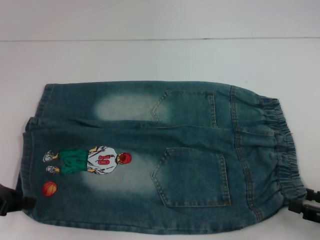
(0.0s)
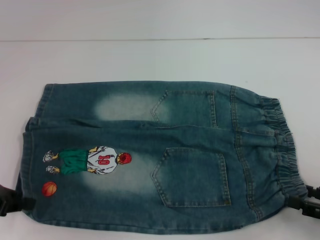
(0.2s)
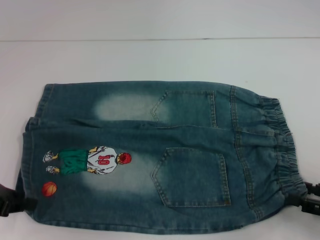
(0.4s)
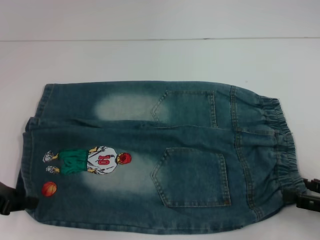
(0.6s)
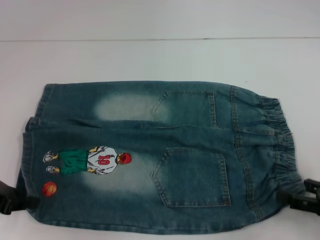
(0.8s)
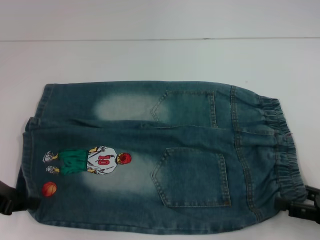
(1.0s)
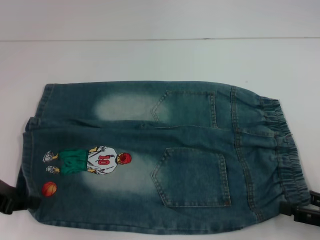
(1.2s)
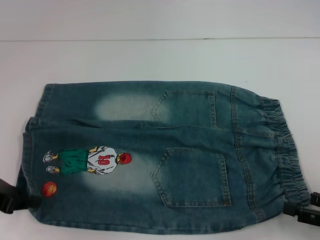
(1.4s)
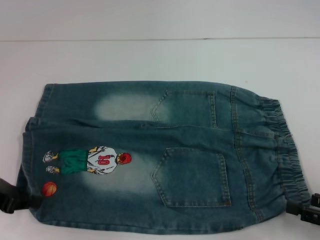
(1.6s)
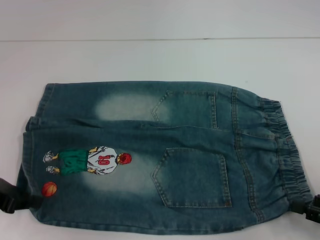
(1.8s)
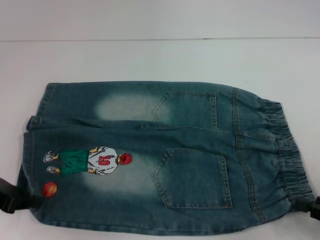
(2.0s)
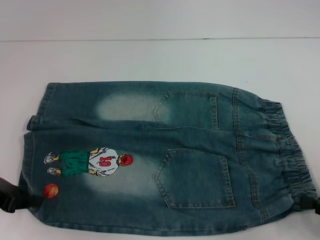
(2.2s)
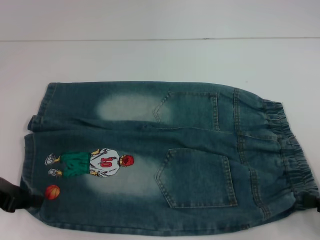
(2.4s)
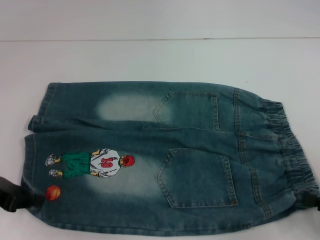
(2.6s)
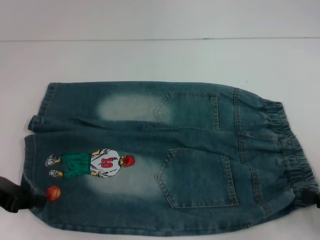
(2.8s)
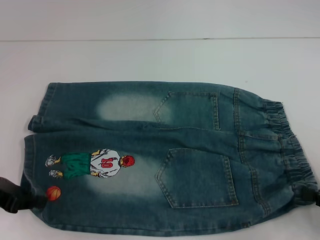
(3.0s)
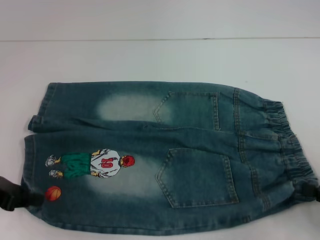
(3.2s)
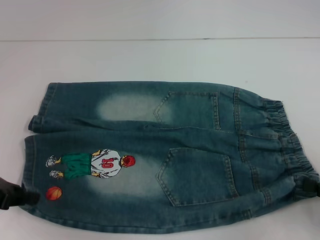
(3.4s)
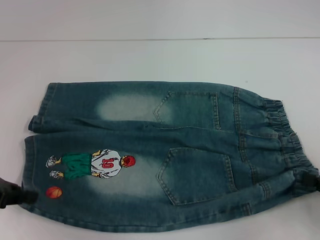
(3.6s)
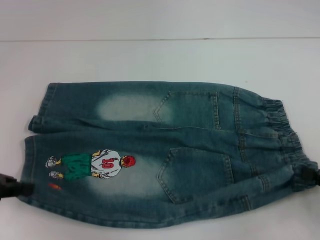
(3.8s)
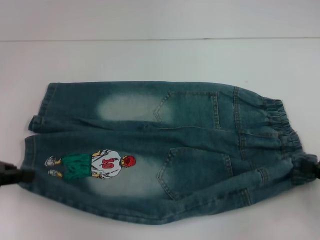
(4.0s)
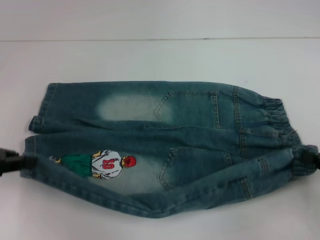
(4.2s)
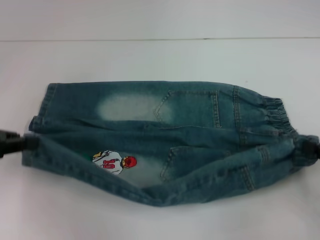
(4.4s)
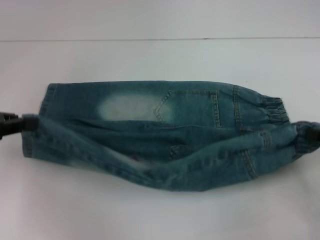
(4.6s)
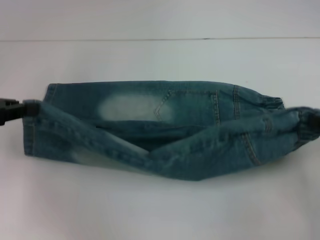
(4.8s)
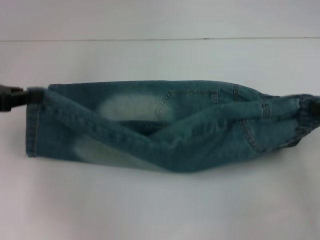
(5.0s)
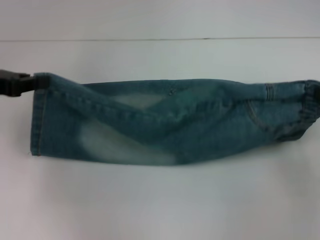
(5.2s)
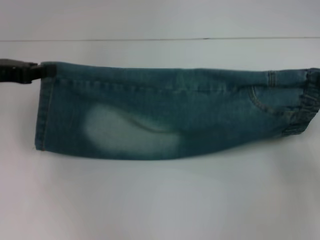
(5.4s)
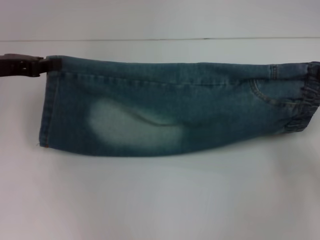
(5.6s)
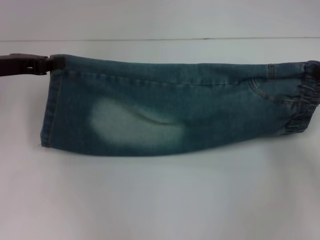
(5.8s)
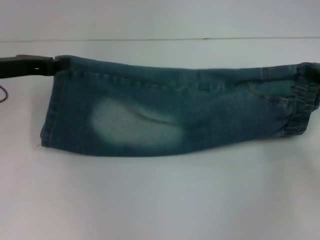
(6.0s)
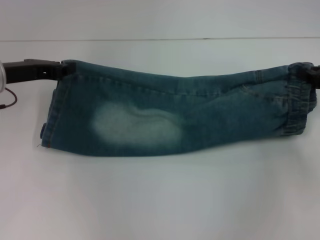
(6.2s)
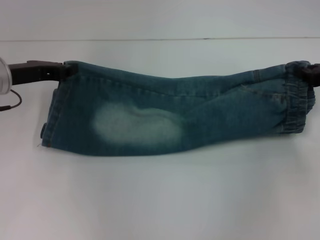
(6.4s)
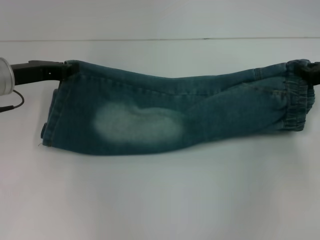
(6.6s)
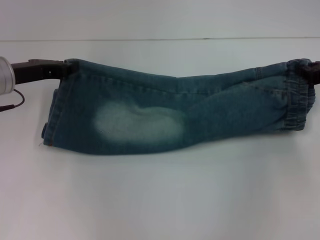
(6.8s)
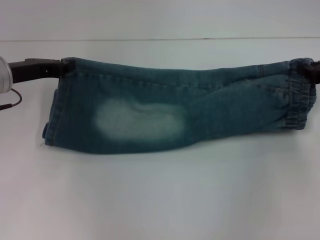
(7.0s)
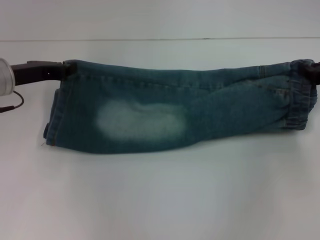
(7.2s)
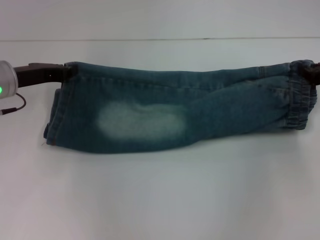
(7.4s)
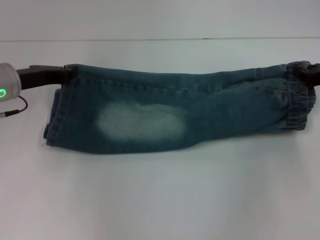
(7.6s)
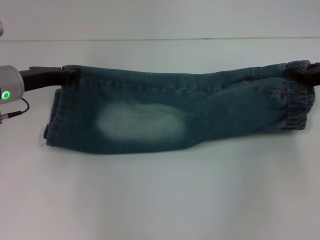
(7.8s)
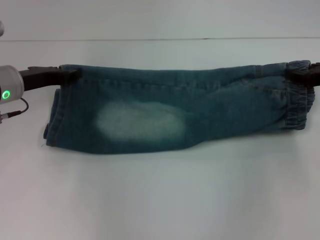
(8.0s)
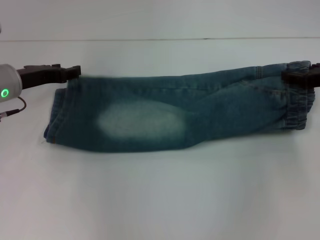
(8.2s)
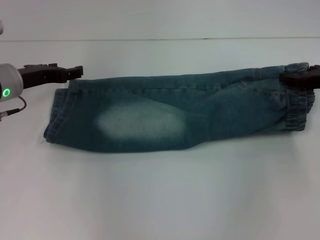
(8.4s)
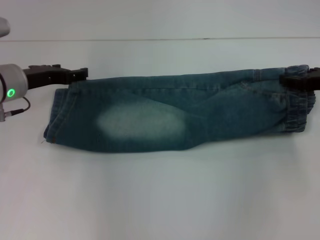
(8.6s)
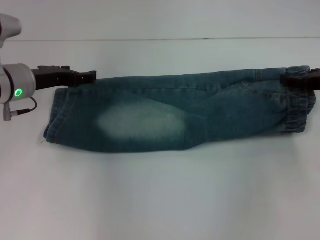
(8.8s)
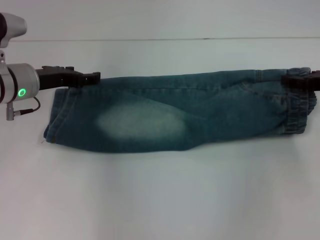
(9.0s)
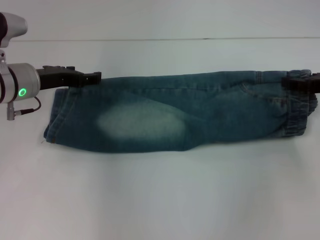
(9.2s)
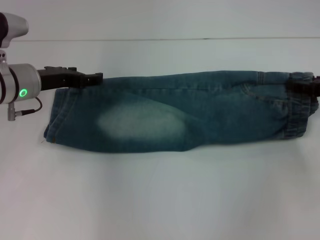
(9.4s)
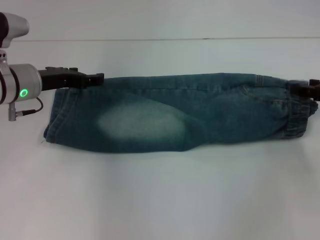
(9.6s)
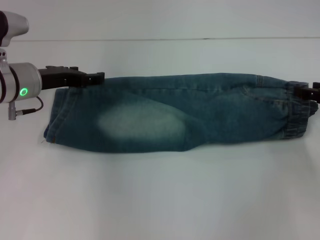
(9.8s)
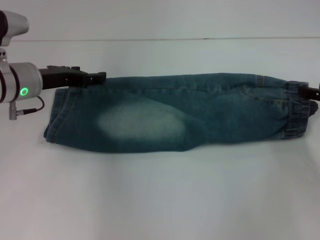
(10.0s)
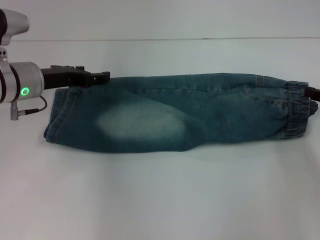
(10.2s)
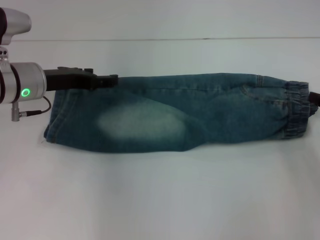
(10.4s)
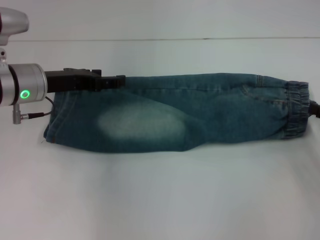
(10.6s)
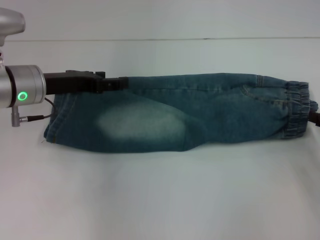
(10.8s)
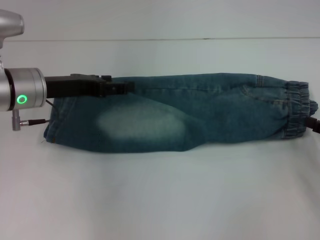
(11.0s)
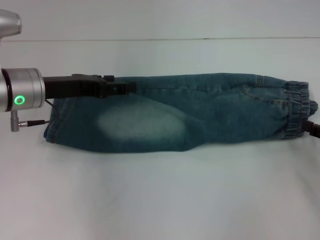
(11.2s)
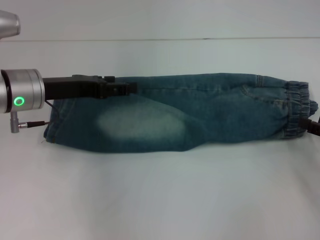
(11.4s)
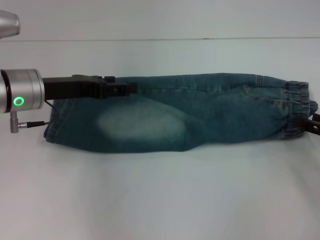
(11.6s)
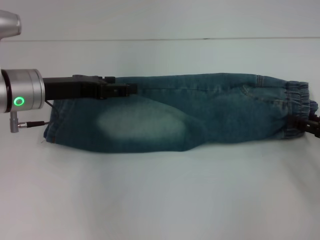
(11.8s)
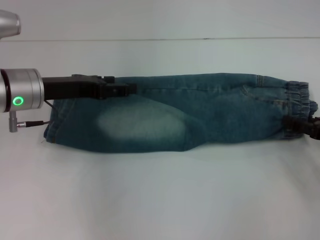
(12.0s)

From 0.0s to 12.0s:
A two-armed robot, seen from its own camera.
Step, from 0.0s to 2.2s: Hold the lower right waistband with your right hand.
Step, from 2.4s to 8.2s: Fold upward with your left hand.
Step, from 8.4s to 9.4s: Fold upward with your right hand.
From 0.0s to 1.6s: There are only small adjustments of the grippers.
From 1.6s to 3.0s: The right gripper closes its fingers.
From 3.0s to 4.4s: The left gripper moves about 5 cm; the right gripper travels forward by about 5 cm.
From 4.4s to 6.0s: The left gripper shifts some 10 cm forward and to the right; the right gripper moves forward, some 10 cm.
From 6.0s to 7.6s: There are only small adjustments of the grippers.
From 7.6s to 9.0s: The left gripper opens its fingers. The right gripper opens.
From 9.0s to 10.4s: The right gripper moves backward, about 5 cm.
From 10.4s to 12.0s: The grippers make only small movements.

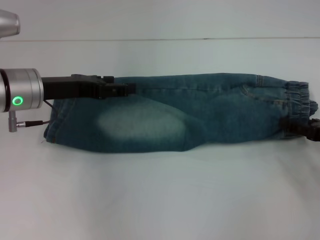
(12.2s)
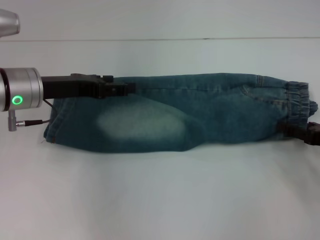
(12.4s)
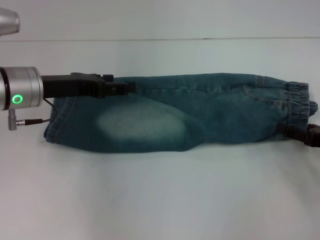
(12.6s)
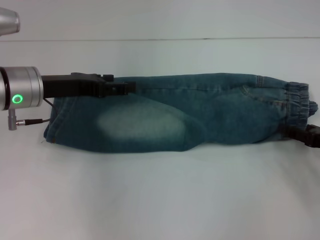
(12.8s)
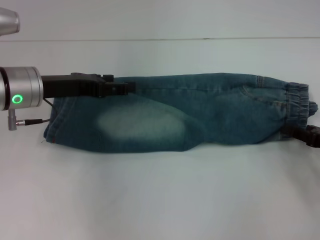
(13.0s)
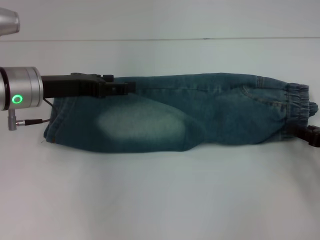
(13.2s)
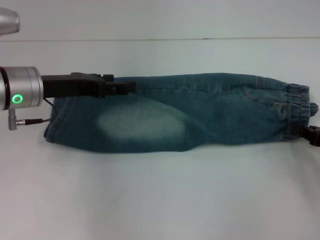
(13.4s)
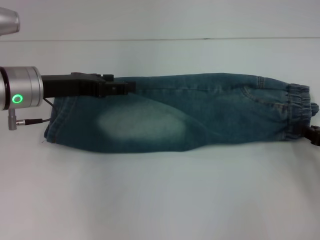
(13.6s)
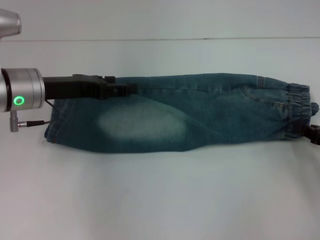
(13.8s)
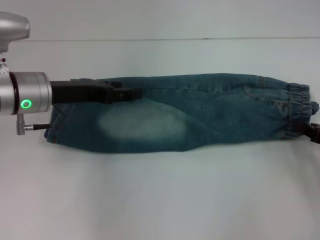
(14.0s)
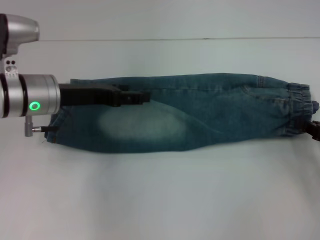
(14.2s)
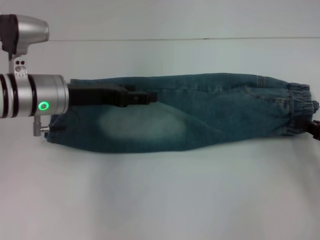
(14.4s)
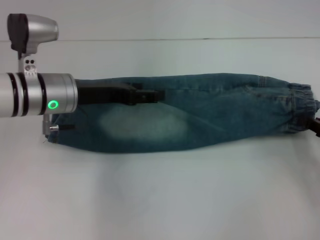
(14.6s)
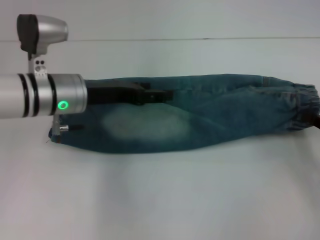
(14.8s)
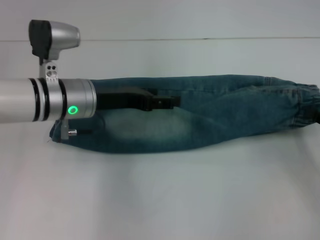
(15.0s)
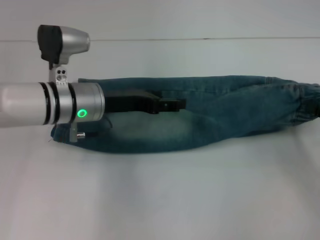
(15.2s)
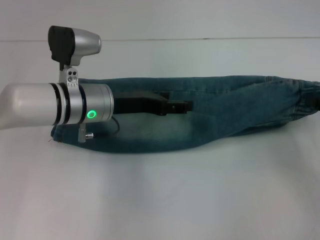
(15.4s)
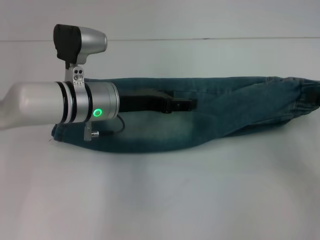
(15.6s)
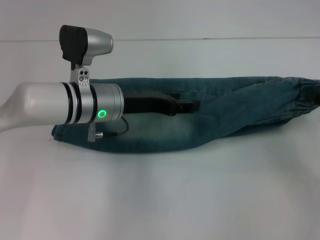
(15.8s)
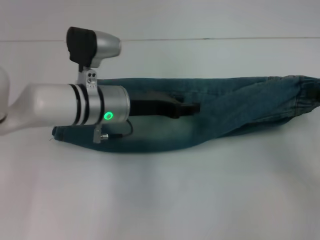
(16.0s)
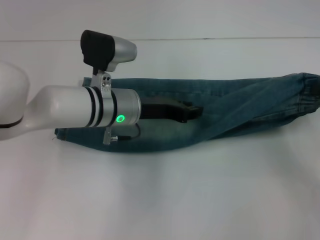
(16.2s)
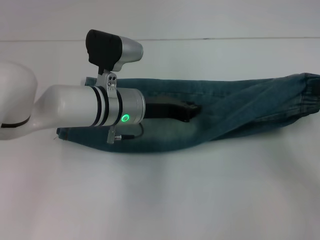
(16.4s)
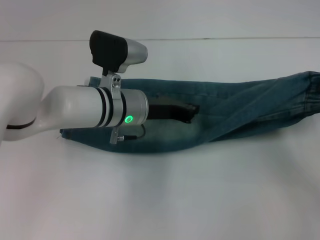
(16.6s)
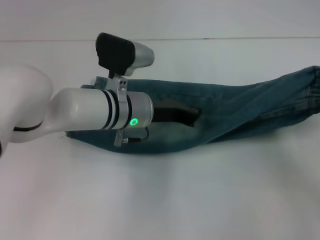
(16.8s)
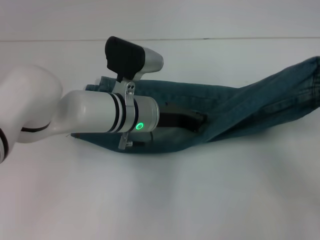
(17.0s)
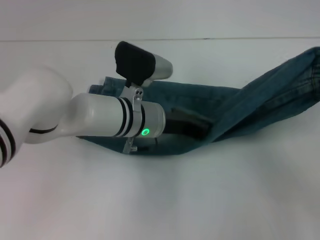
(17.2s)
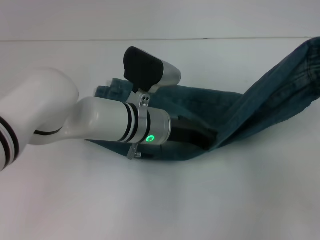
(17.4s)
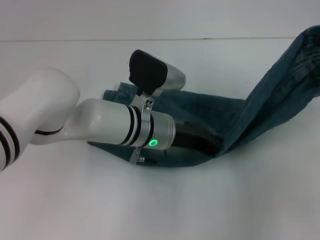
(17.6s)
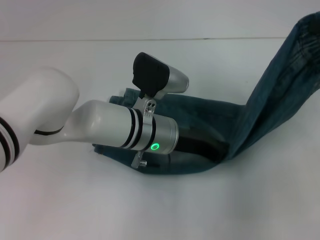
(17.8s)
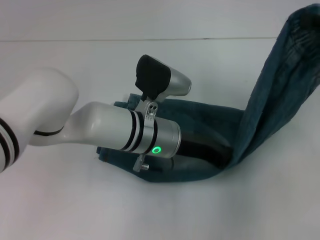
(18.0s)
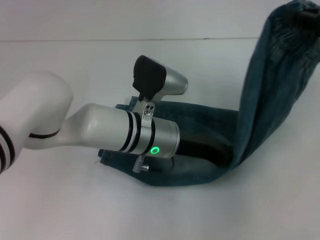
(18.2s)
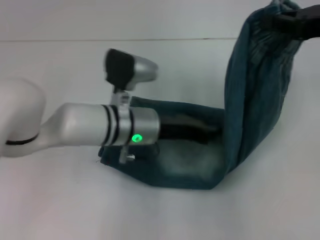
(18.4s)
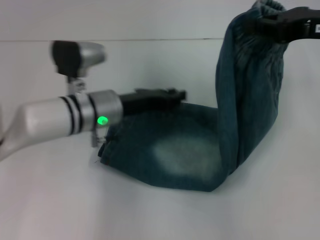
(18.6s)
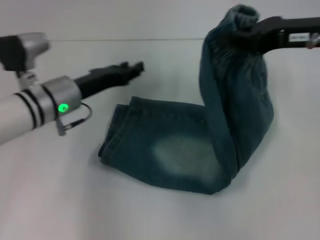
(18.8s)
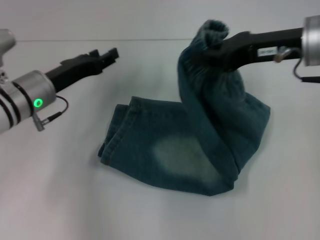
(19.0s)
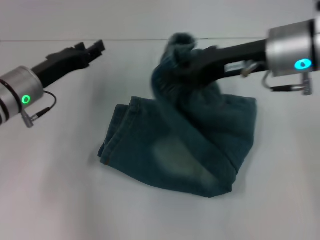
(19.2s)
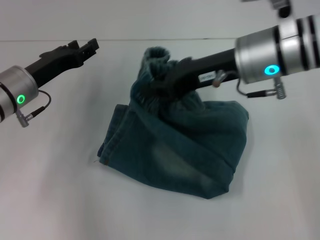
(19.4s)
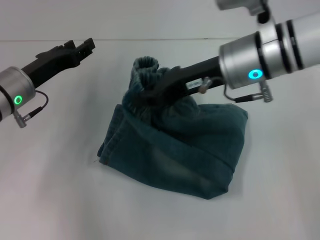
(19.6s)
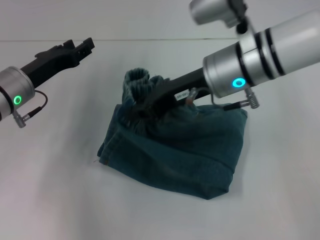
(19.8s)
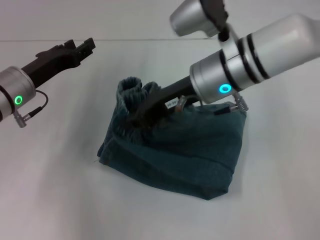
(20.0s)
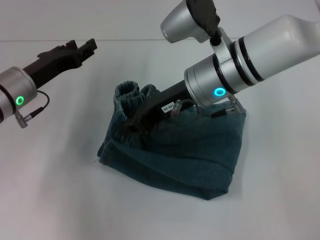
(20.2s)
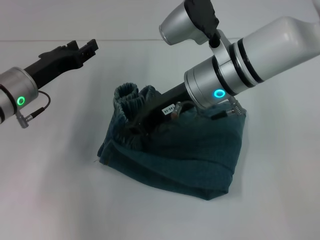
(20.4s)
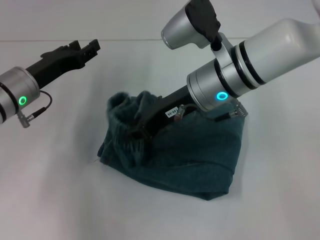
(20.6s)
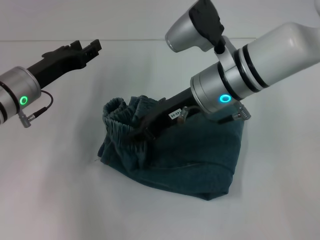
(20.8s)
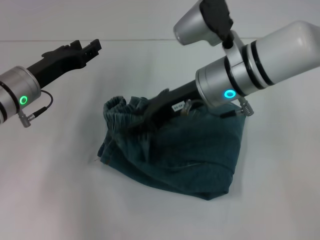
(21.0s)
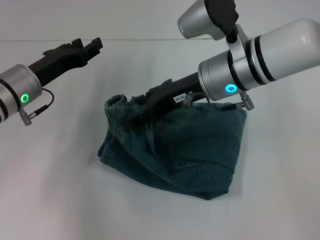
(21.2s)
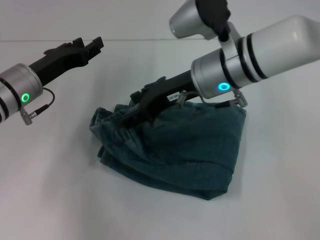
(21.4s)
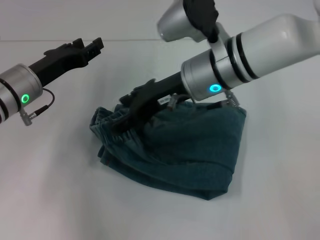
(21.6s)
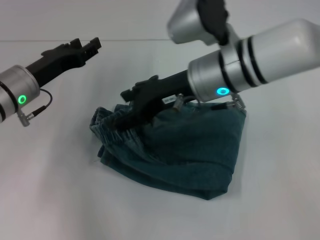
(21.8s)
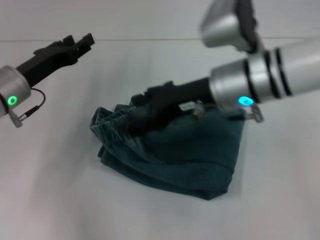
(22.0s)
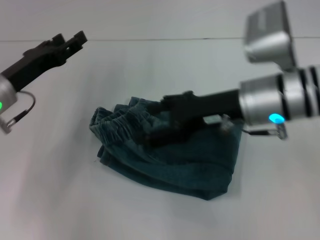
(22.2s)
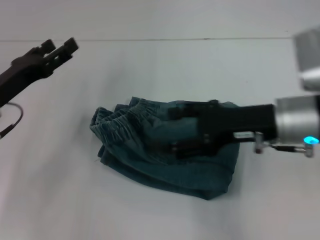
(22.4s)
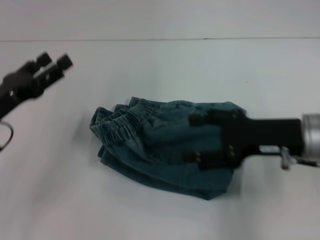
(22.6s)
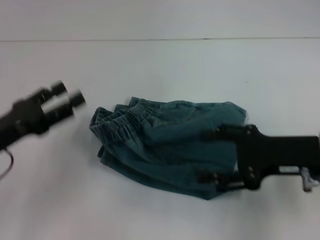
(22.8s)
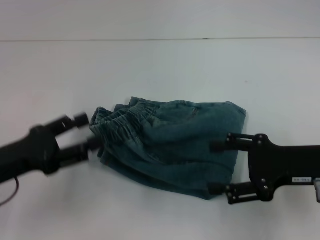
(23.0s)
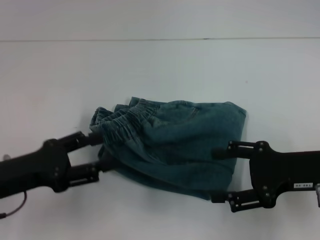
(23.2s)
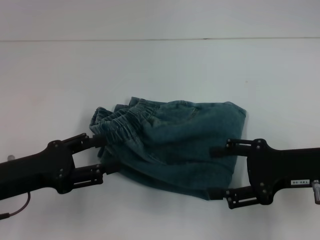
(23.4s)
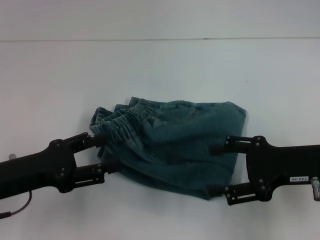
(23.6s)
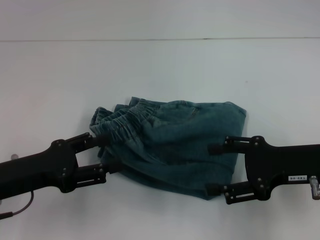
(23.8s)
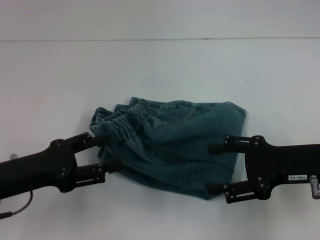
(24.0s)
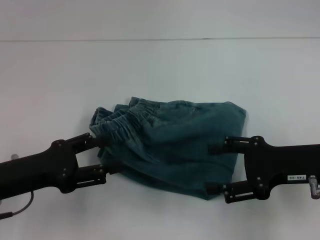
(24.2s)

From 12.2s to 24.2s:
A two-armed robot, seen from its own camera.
Step, from 13.8s to 18.2s: Press the middle of the pants with your left hand.
Step, from 18.4s to 21.4s: Fold to the left with your right hand.
From 12.2s to 13.8s: The right gripper closes.
From 13.8s to 15.2s: The left gripper travels to the right by about 5 cm.
From 15.2s to 16.6s: The left gripper heads to the right, covering some 5 cm, and closes.
From 16.6s to 18.2s: The right gripper goes approximately 15 cm upward, to the left and forward. Meanwhile the left gripper changes place by approximately 5 cm.
From 18.2s to 19.8s: Both grippers travel together to the left, approximately 20 cm. The left gripper opens up.
From 19.8s to 21.2s: The right gripper opens up.
From 21.2s to 22.6s: The right gripper goes roughly 15 cm to the right and backward, while the left gripper shifts about 10 cm backward and to the left.
From 22.6s to 24.2s: The left gripper shifts about 5 cm backward.
